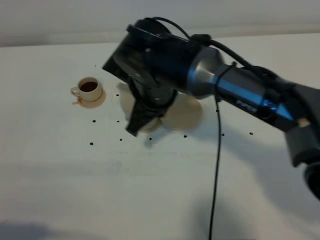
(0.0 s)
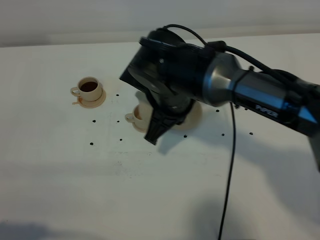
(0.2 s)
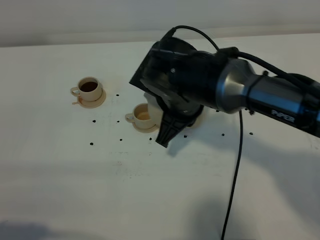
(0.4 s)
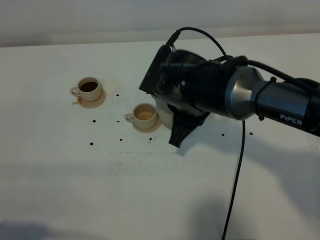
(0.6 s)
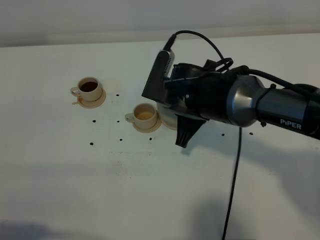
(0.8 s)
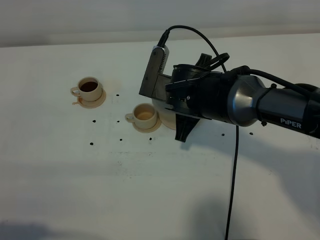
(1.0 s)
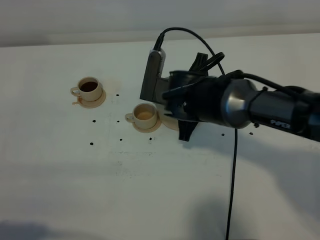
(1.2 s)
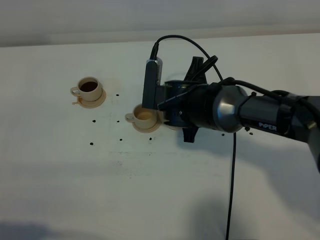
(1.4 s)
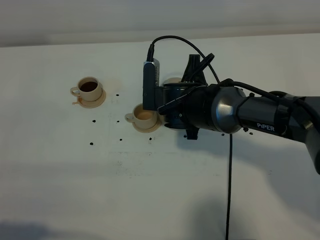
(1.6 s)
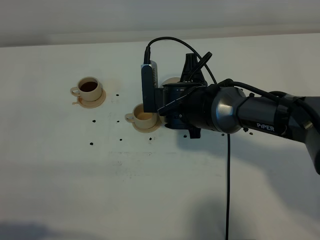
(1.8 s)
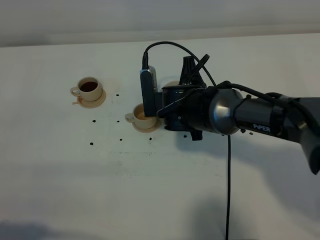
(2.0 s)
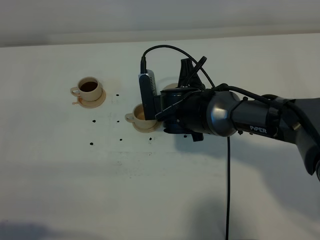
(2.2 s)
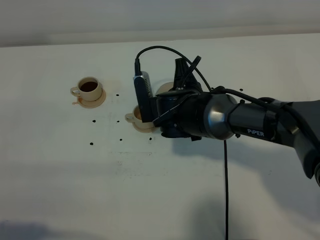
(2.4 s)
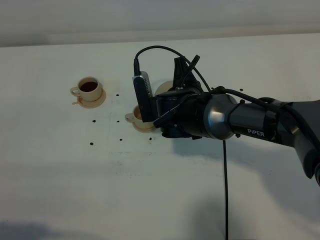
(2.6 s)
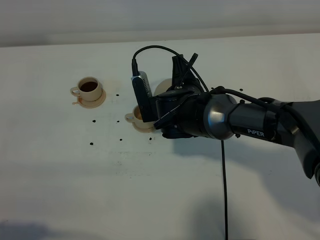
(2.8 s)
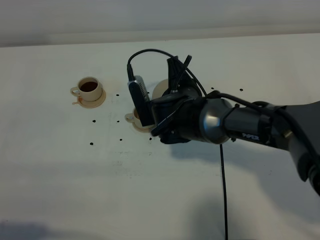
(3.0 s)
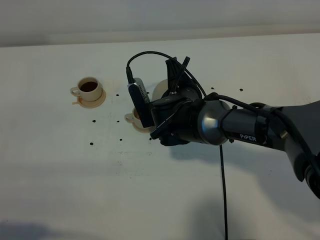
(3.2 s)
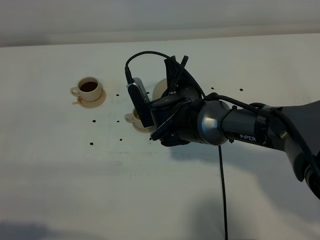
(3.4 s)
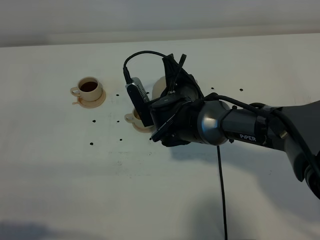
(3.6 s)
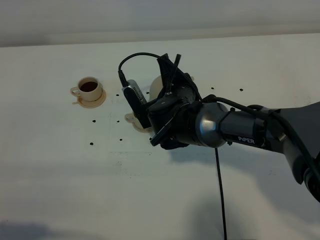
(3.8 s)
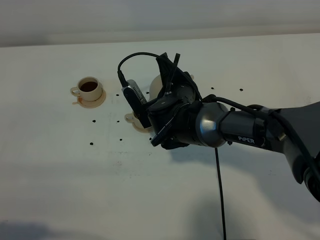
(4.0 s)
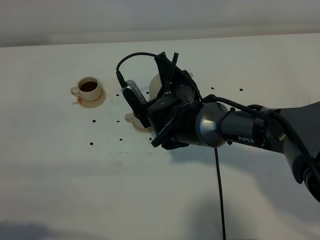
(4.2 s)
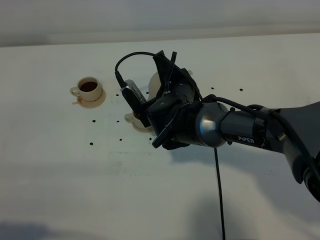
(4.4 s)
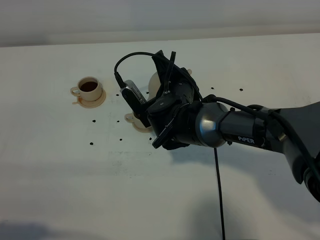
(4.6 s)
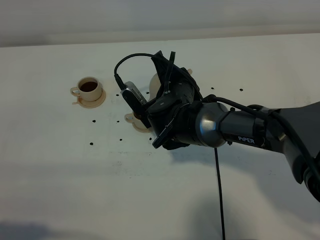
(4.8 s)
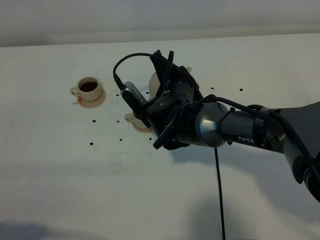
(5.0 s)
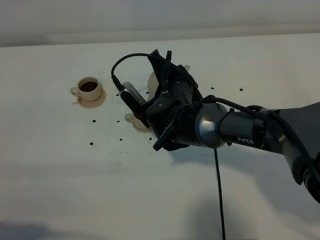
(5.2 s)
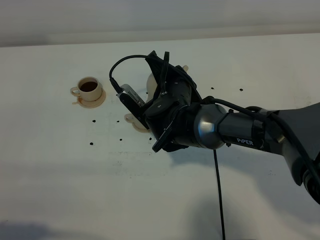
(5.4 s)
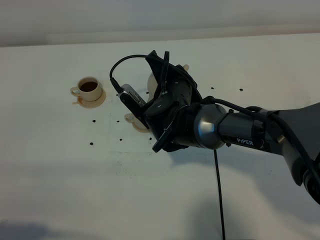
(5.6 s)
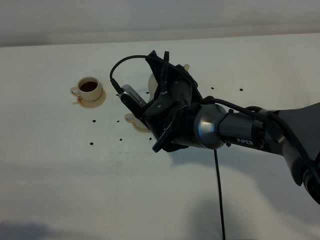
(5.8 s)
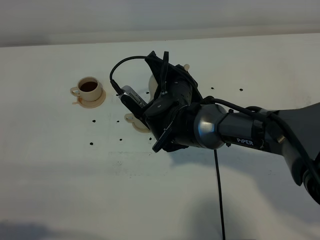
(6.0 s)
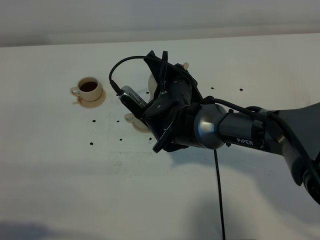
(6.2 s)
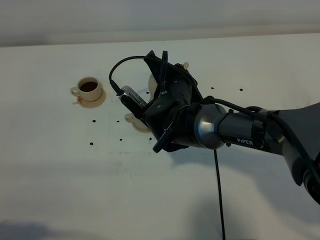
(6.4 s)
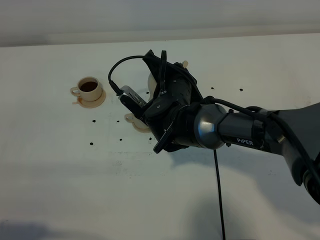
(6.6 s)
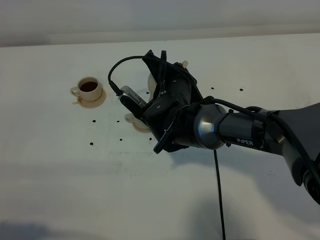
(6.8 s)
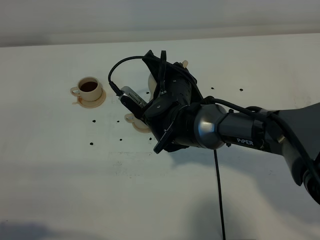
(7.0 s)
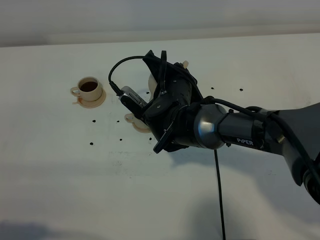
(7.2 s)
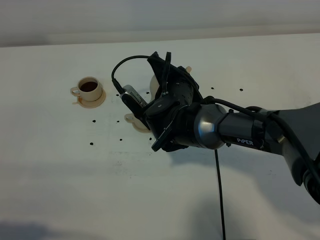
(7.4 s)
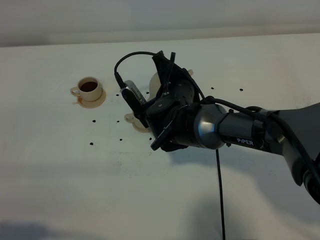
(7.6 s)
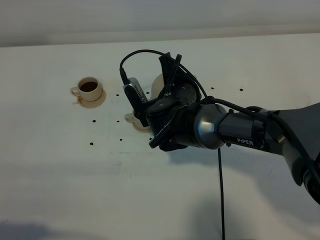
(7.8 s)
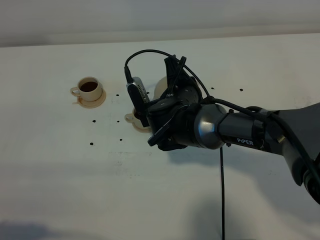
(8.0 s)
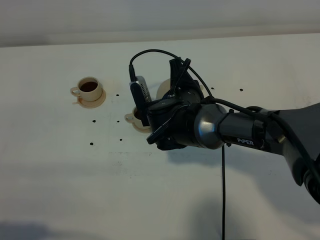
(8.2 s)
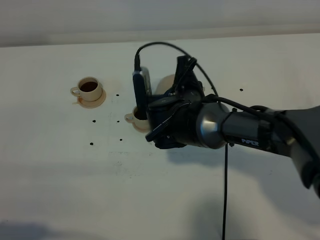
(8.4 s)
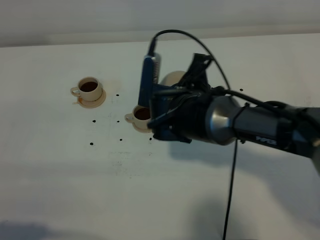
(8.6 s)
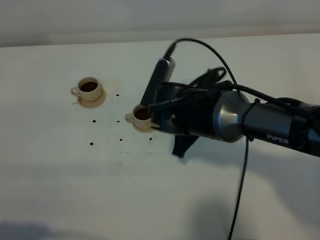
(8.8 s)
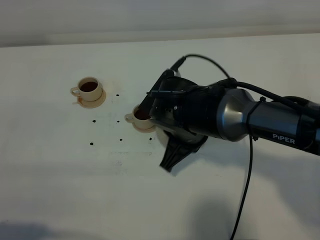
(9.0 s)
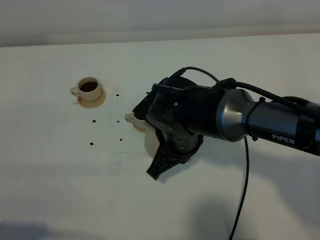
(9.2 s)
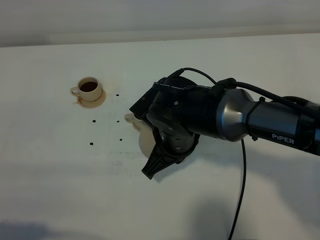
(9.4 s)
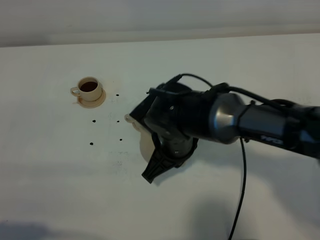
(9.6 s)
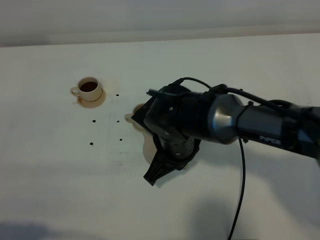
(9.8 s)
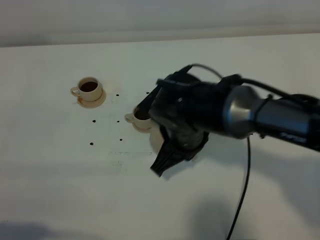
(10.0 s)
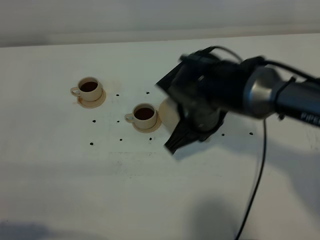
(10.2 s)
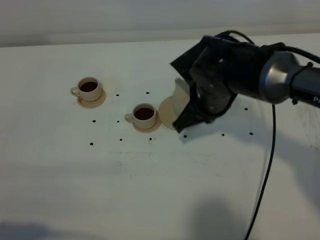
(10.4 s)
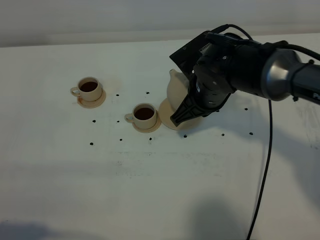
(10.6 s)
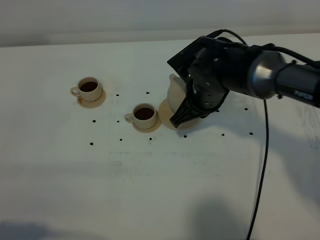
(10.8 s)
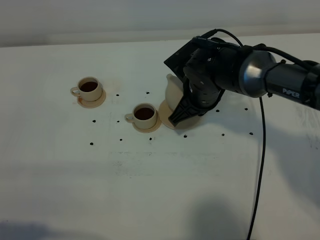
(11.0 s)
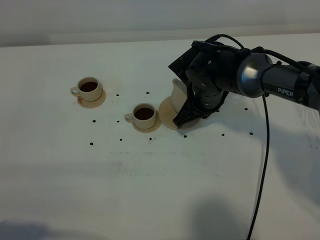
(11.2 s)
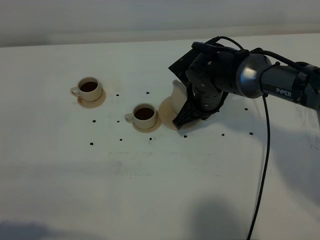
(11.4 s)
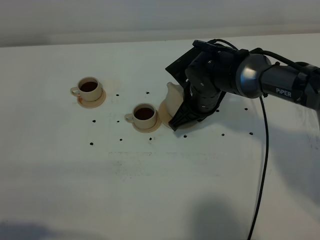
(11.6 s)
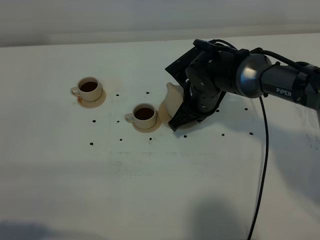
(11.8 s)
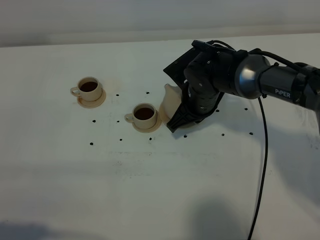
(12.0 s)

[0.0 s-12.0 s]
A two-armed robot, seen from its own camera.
Task of the whole recording: grasp the brown teapot and pour the tea into the two brown teacups one by one, put the brown teapot back in its original place.
Step, 0.0 to 8.4 s: Pour tea into the teacup with the right gripper.
0.0 to 1.6 s: The right gripper goes some 10 cm downward and to the right.
3.0 to 4.4 s: The grippers stay close to where they were, moving slightly.
4.4 to 7.6 s: The grippers move only a little.
7.6 to 9.0 s: The right gripper heads backward, covering approximately 5 cm.
9.0 to 10.4 s: The right gripper moves forward, roughly 5 cm.
10.4 to 12.0 s: The right gripper shifts approximately 5 cm downward.

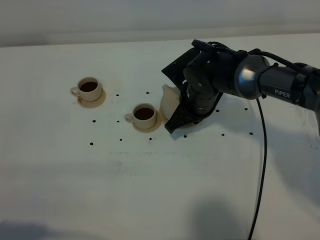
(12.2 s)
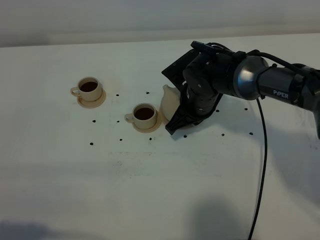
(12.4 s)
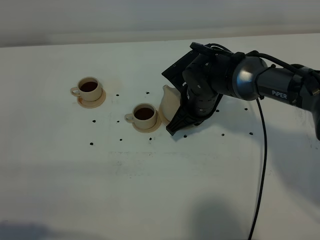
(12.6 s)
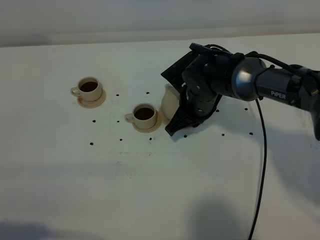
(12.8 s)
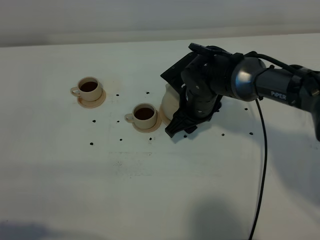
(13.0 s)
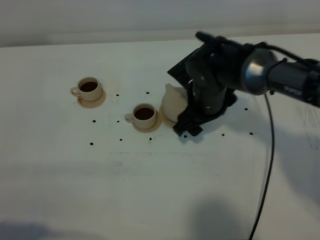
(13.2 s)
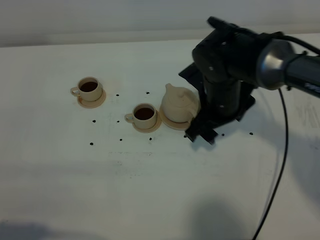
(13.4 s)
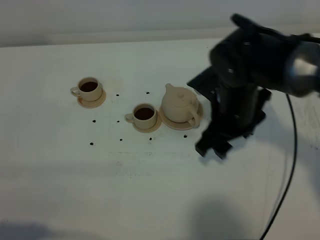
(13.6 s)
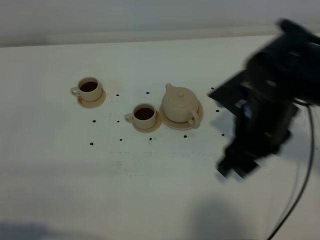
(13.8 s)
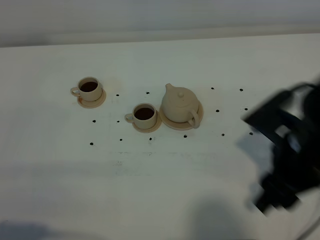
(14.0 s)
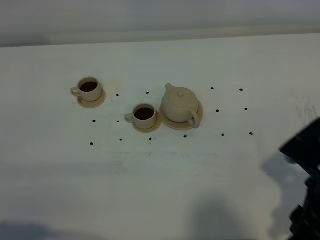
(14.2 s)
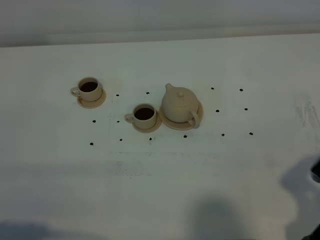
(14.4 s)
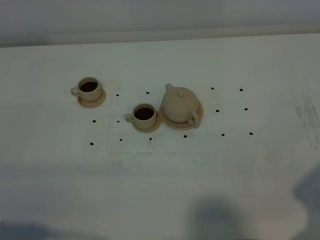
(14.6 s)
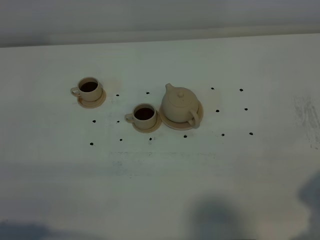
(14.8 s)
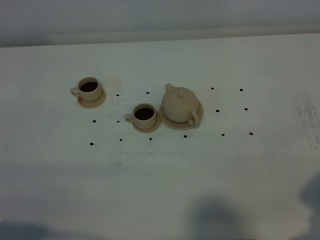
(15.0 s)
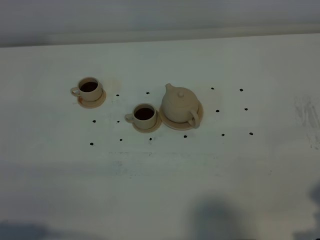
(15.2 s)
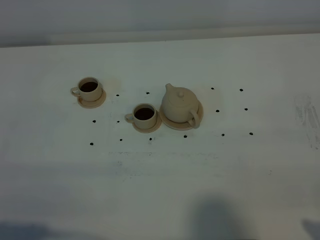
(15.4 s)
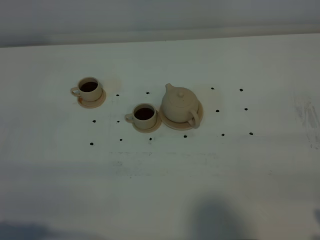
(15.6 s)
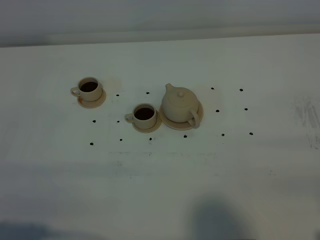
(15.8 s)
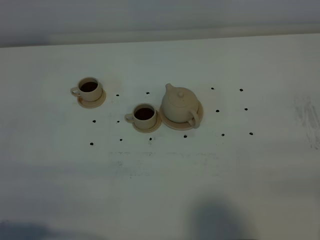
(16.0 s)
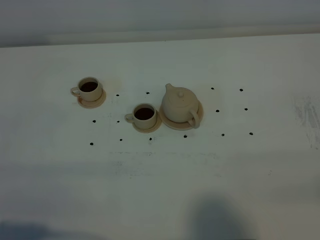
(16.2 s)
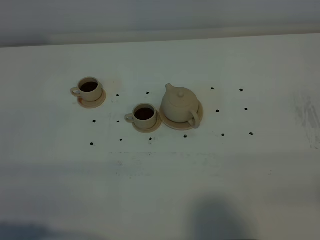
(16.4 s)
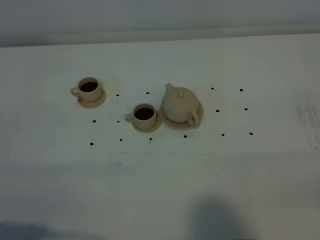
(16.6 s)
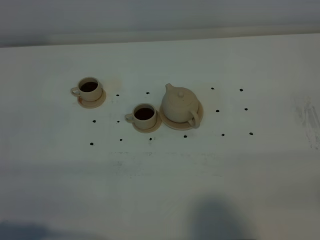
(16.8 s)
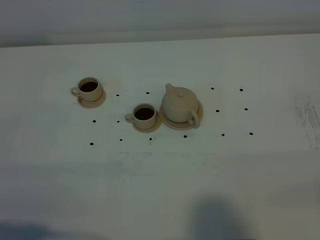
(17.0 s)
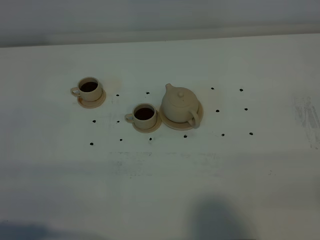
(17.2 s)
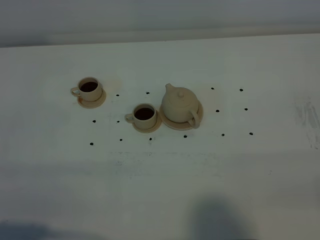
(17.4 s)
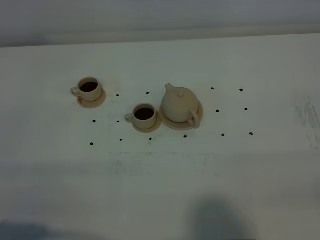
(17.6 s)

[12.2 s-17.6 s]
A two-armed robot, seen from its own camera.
Task of the whole recording: grasp the brown teapot and pour the tea into the two brown teacups one by one, put the brown teapot back in its original place.
12.2 to 13.6 s: The right gripper goes about 10 cm backward and upward, and opens up.
13.6 to 15.0 s: The right gripper moves backward and to the right, some 25 cm.
15.0 to 16.2 s: The right gripper goes approximately 5 cm backward.
16.2 to 17.6 s: The two grippers keep their place.
